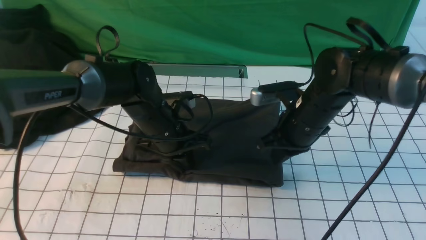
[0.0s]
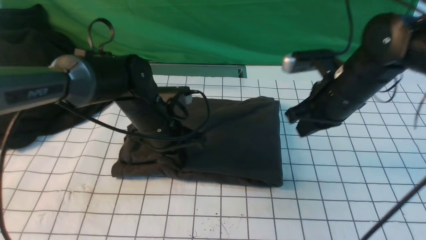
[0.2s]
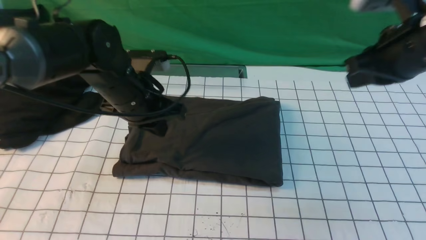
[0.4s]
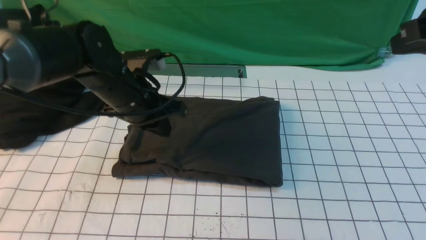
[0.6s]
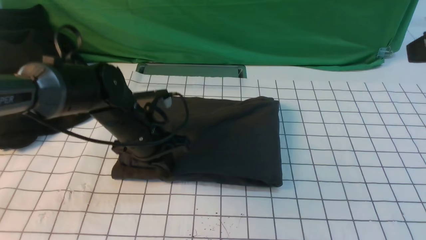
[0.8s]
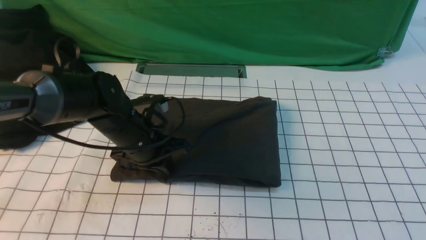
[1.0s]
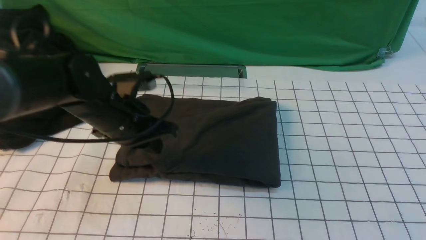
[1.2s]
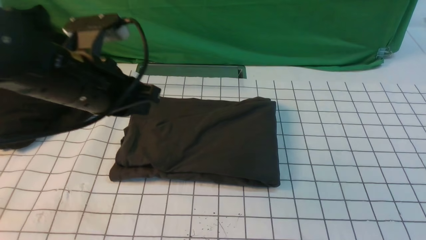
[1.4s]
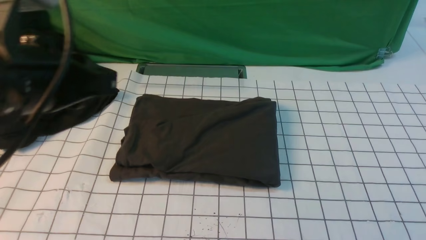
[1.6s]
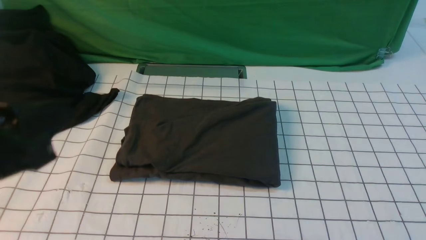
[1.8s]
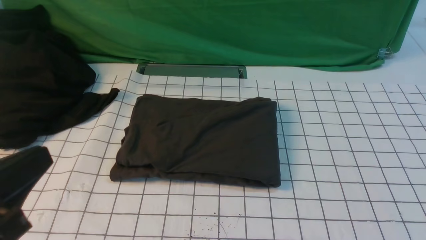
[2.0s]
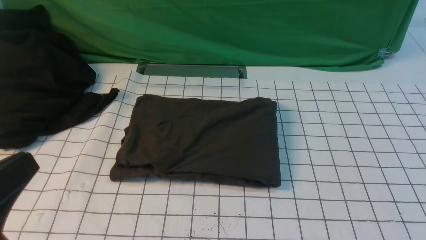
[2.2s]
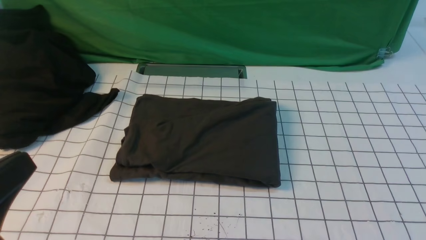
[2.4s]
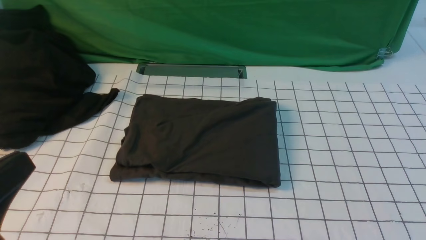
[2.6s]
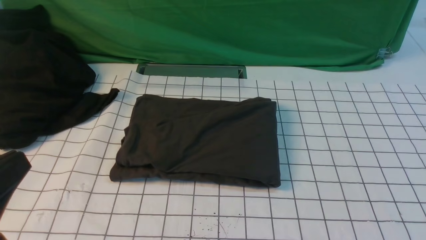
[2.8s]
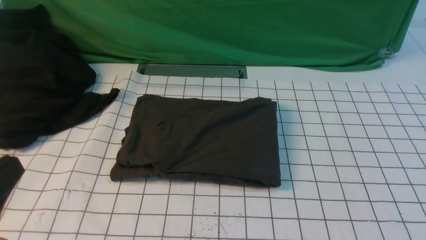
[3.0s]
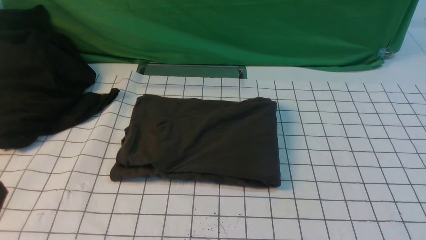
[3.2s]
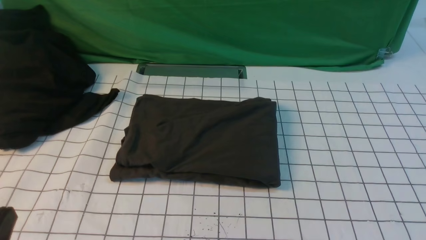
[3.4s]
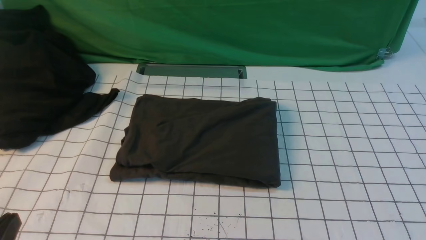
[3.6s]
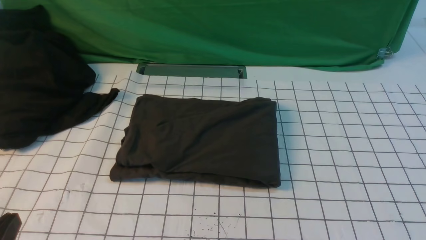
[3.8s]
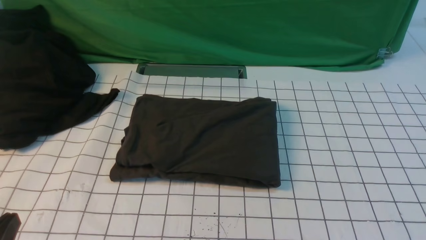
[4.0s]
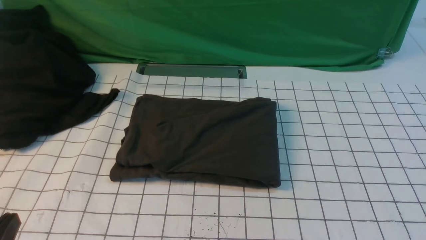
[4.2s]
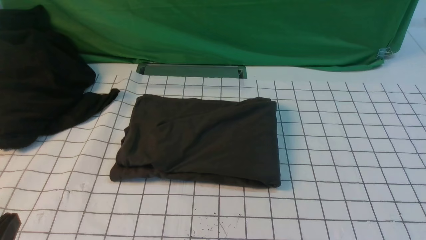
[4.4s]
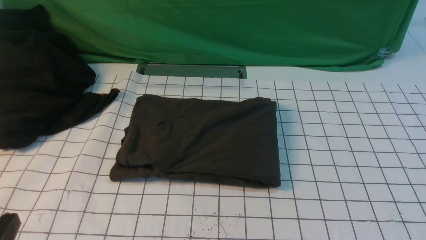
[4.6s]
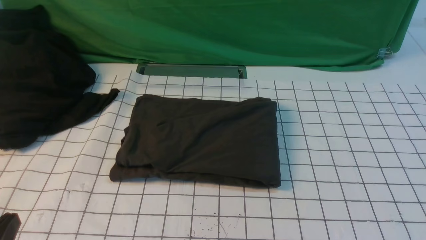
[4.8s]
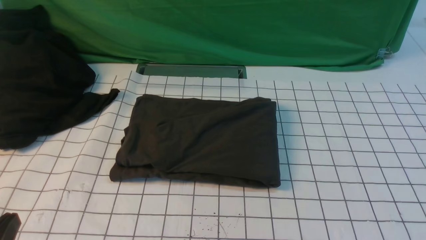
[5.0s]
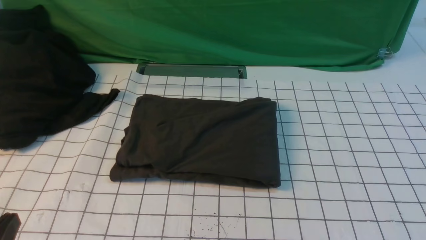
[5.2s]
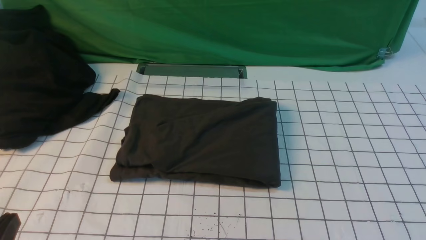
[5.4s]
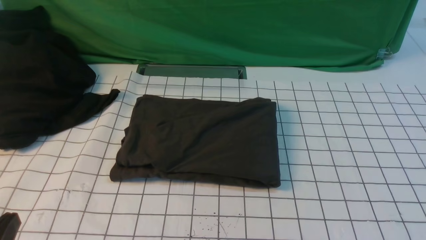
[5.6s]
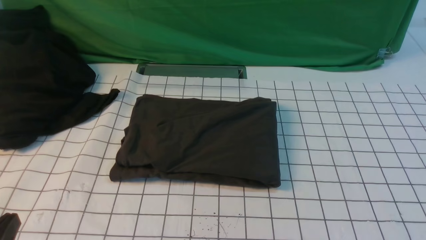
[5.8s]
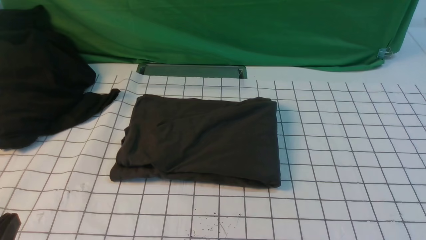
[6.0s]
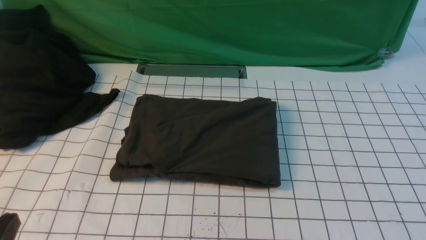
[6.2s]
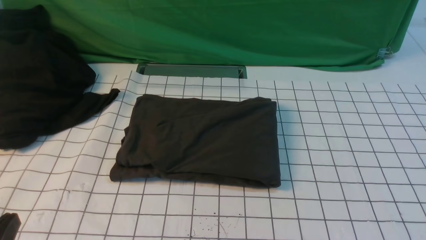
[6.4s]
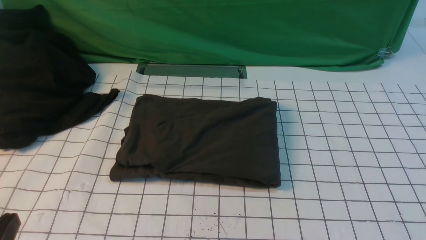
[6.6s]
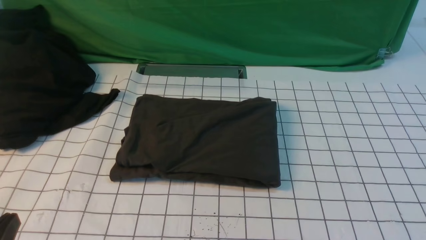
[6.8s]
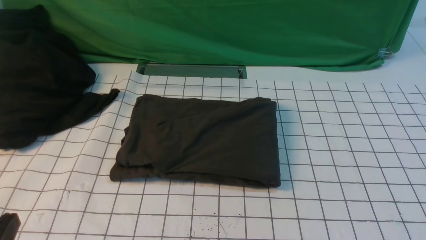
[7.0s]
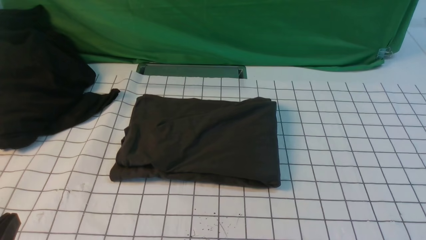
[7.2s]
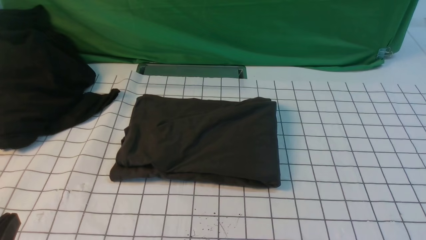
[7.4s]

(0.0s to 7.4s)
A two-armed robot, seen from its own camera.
0.0s - 1.4s: The right gripper travels backward, upward and to the right by approximately 40 cm; the left gripper goes up and down, some 15 cm each way, reversing 2 times.
1.4s - 3.0s: The right gripper is displaced downward by about 10 cm, and opens its fingers. The left gripper travels backward by roughly 20 cm.
3.0s - 4.4s: The left gripper goes about 10 cm downward.
6.0s - 7.4s: The two grippers keep their place.

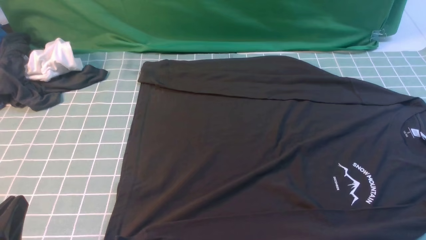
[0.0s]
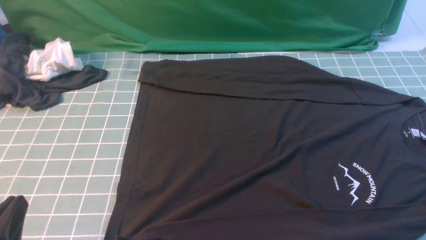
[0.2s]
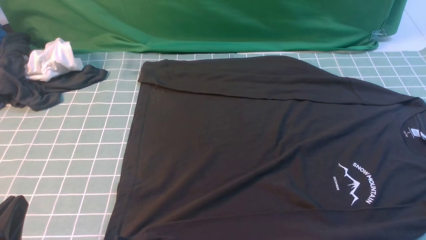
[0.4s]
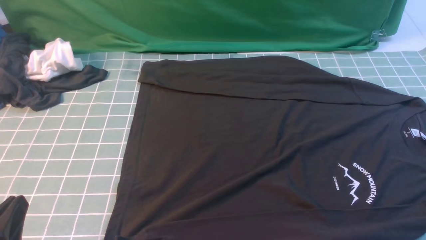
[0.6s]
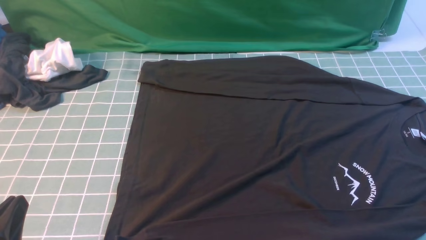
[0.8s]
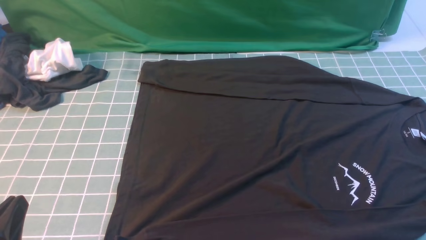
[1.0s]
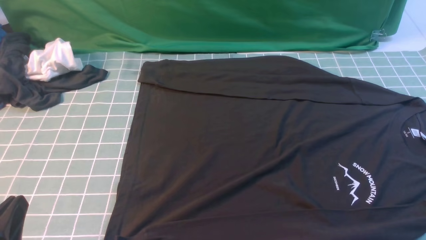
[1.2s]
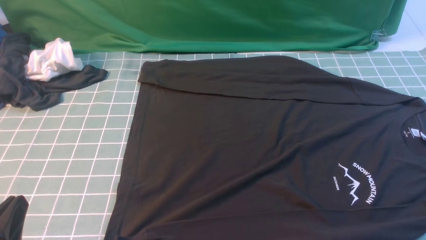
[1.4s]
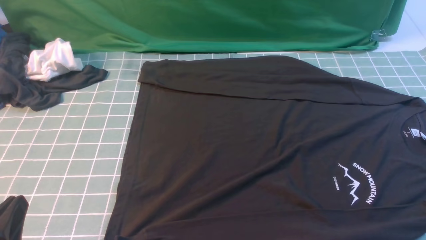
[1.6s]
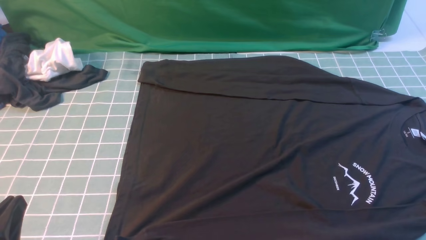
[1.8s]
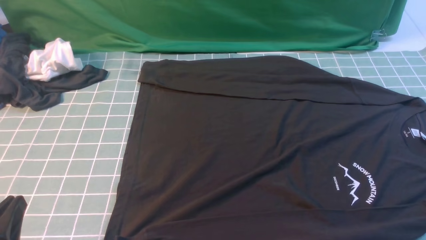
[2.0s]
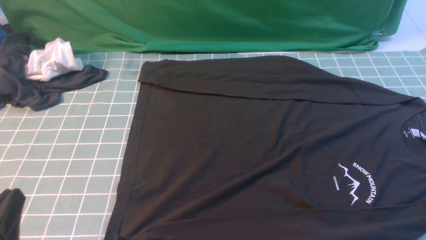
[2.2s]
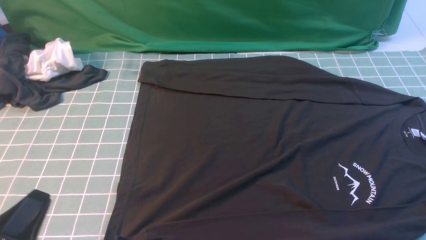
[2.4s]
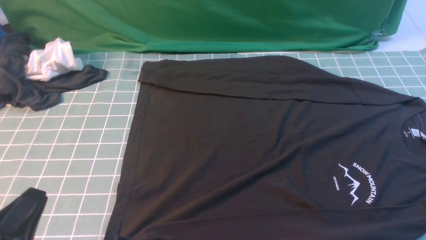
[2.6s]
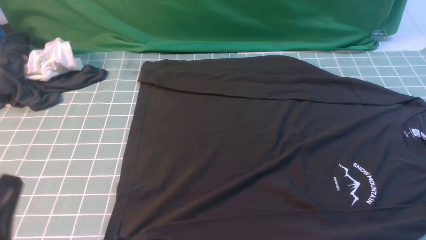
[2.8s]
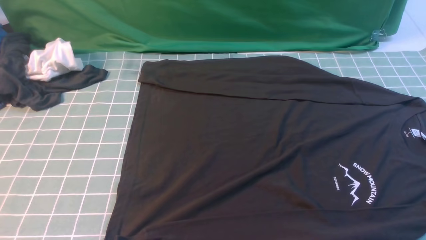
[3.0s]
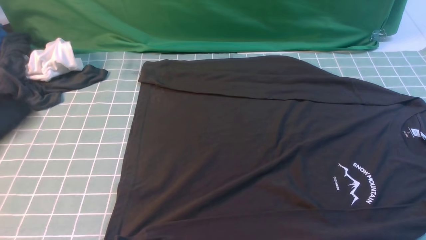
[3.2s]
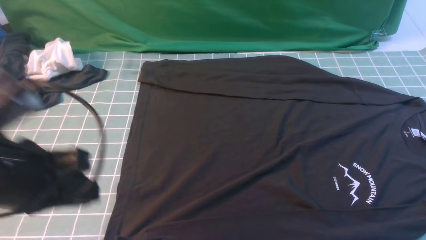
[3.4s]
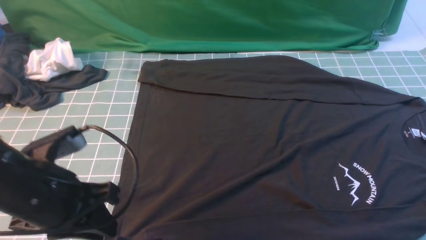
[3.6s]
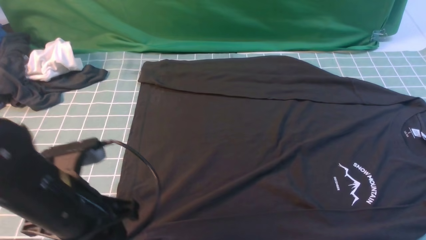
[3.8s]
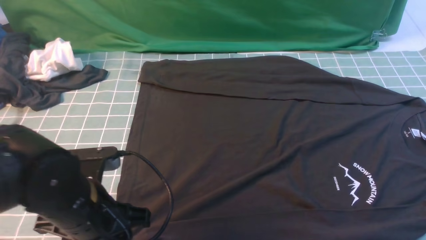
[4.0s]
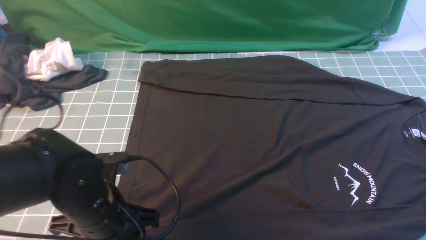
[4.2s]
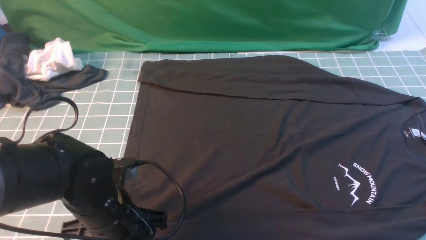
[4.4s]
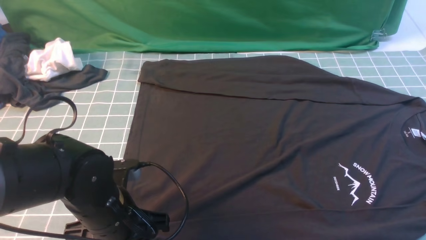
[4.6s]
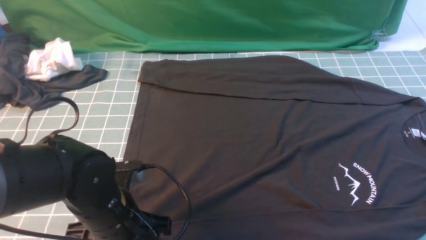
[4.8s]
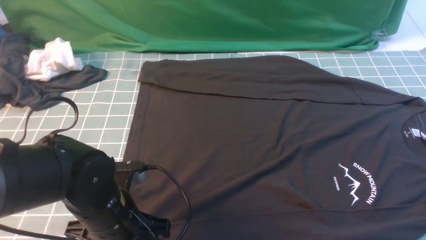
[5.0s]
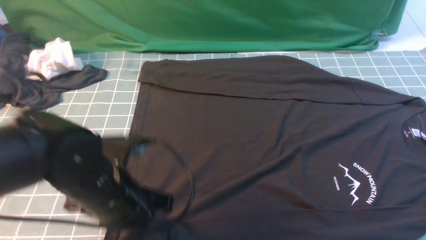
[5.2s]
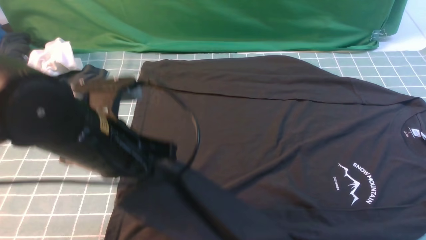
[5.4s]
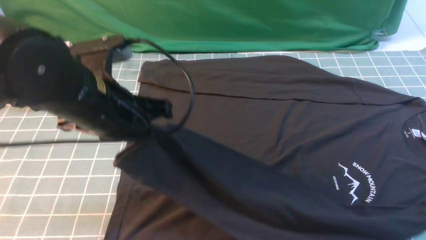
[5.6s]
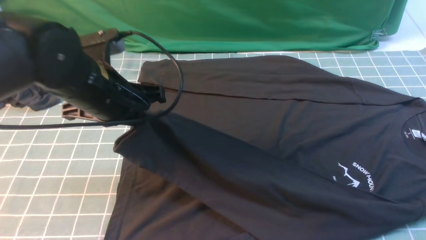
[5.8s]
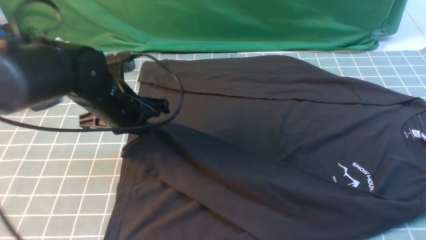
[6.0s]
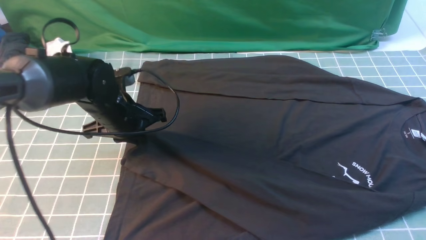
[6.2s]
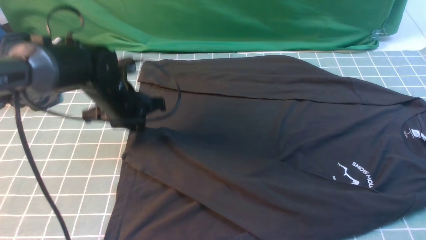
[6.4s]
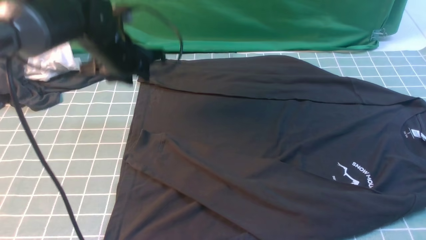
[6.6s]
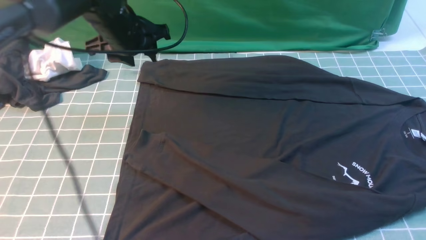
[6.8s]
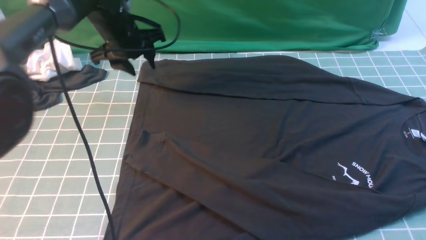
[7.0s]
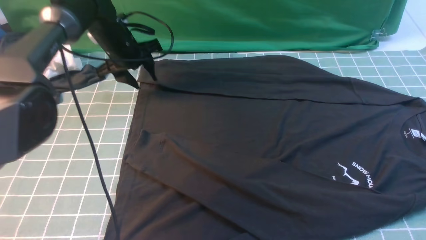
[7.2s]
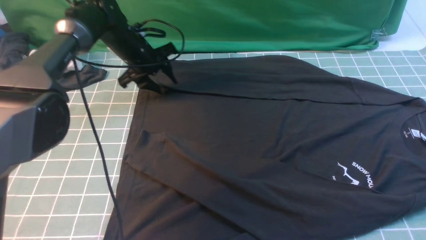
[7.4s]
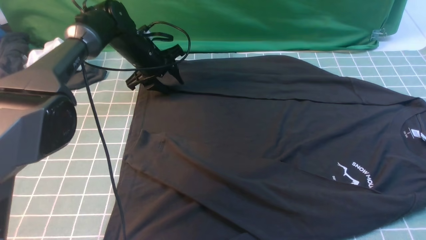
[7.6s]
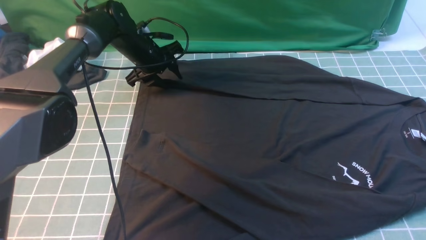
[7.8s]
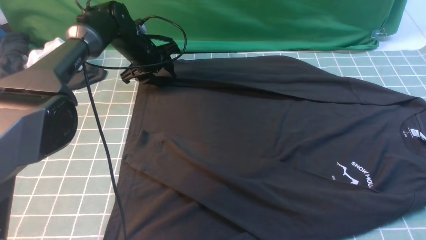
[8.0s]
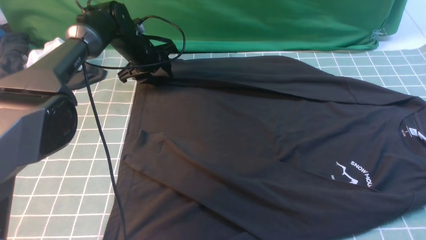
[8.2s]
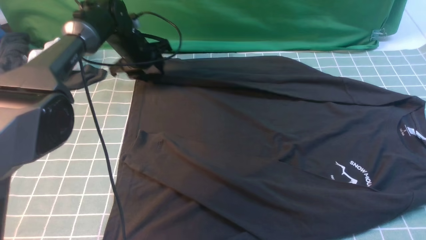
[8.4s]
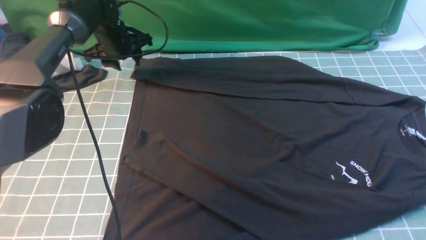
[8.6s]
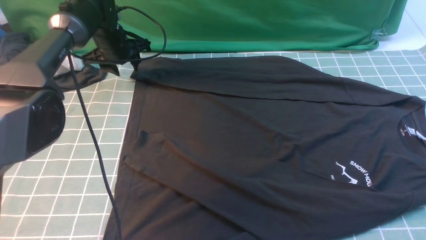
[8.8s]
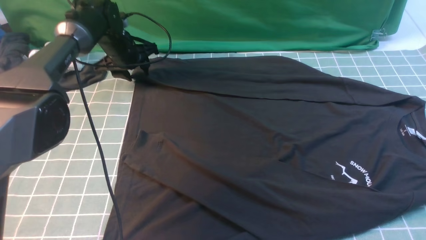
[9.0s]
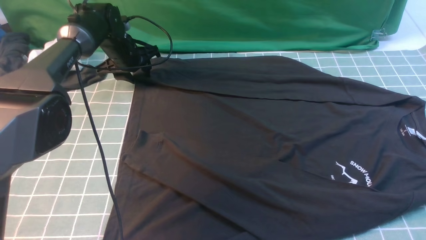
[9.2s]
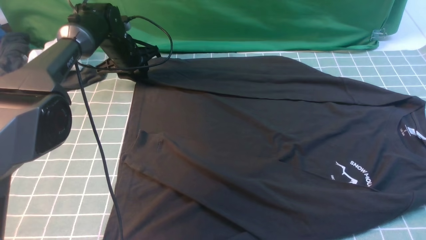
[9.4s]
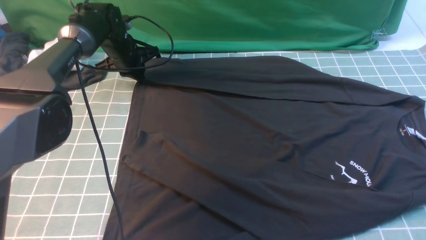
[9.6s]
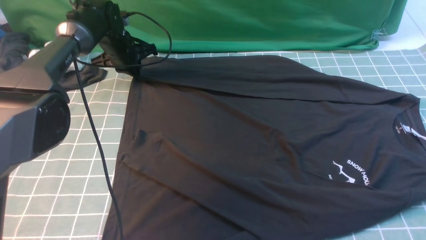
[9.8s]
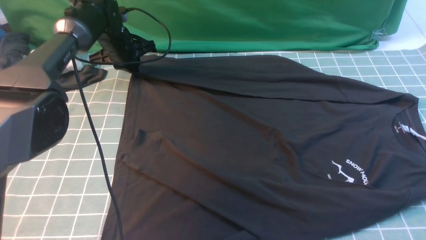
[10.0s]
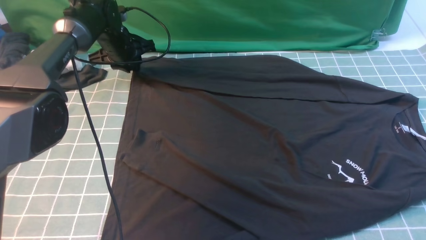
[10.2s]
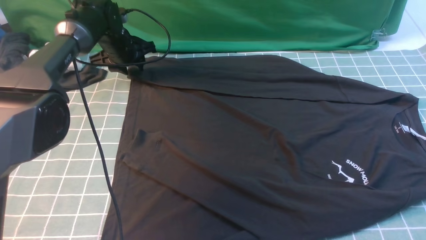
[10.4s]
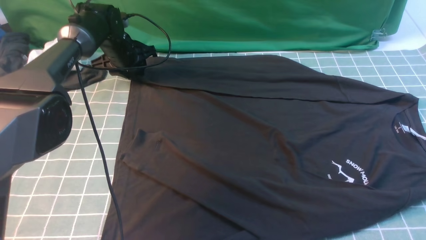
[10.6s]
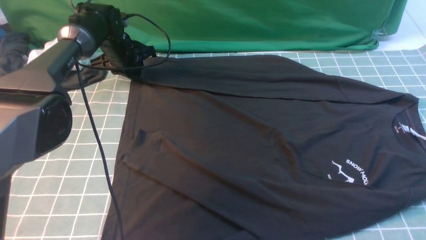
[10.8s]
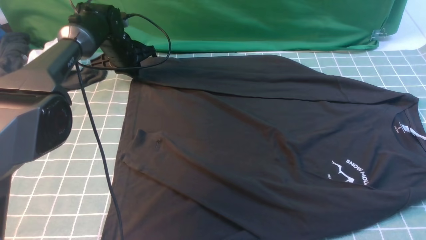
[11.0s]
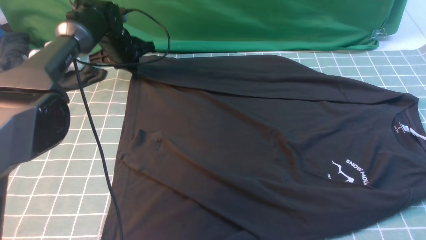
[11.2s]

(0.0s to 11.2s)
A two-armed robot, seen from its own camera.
Step, 0.0s - 5.2s: use the left arm to clamp the cuff closest to it.
Step, 5.4s - 6.4s: use the left arm to drag and place the cuff at the centered position on the left edge of the fabric.
0.0s - 1.6s: Both grippers stay about where they are.
1.6s - 3.2s: The left gripper heads upward and forward, covering roughly 15 cm.
3.2s - 4.8s: The right gripper moves forward, some 10 cm, while the left gripper moves downward, to the right and forward, some 20 cm, and opens, then closes once more.
4.8s - 6.4s: The left gripper travels forward by about 20 cm.
6.4s - 8.0s: The left gripper goes approximately 15 cm forward, and opens.
8.0s - 9.6s: The left gripper closes up.
9.6s - 11.2s: The left gripper opens, then closes once more.
